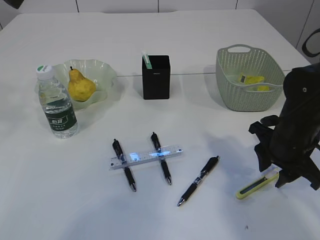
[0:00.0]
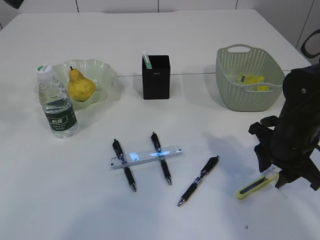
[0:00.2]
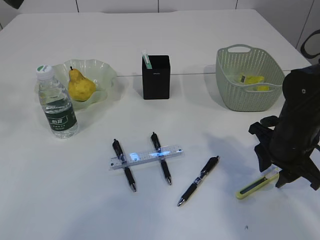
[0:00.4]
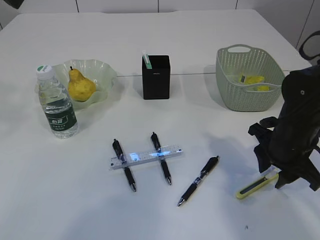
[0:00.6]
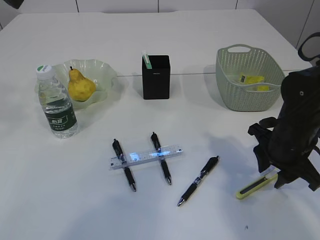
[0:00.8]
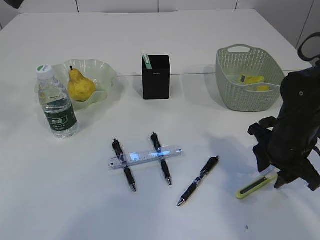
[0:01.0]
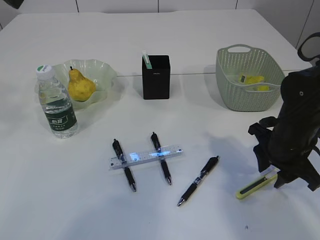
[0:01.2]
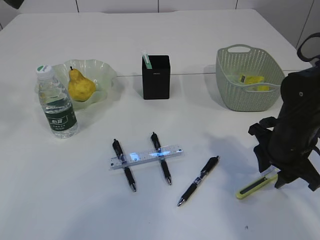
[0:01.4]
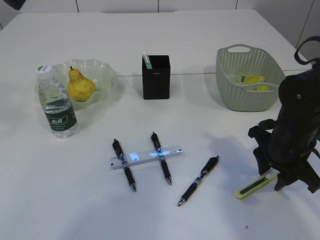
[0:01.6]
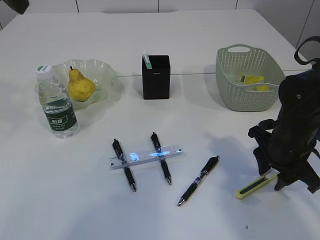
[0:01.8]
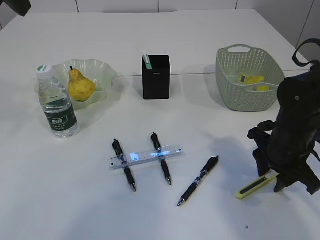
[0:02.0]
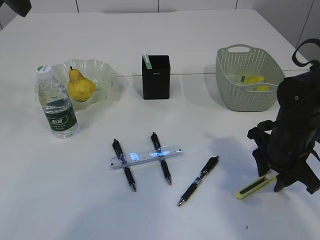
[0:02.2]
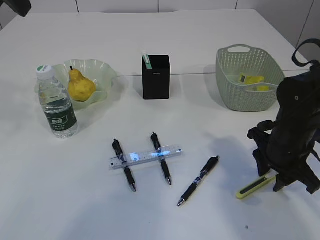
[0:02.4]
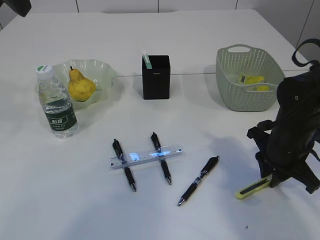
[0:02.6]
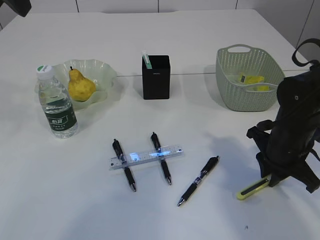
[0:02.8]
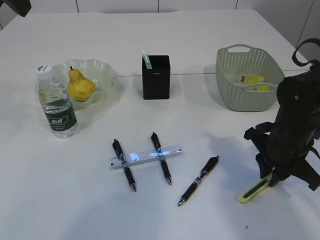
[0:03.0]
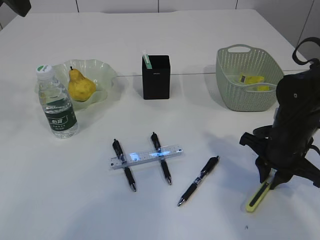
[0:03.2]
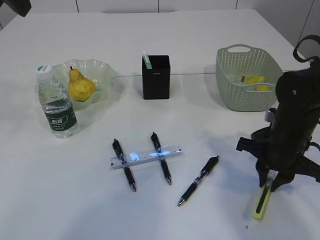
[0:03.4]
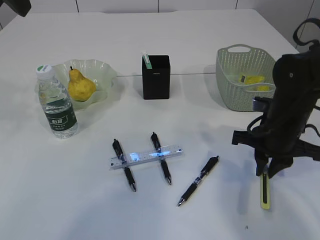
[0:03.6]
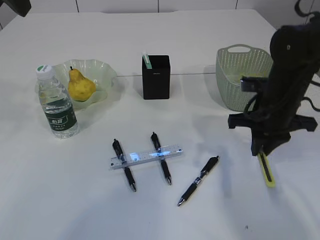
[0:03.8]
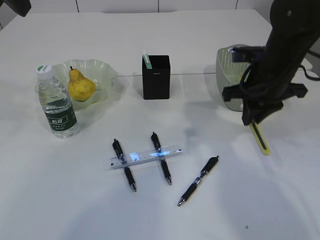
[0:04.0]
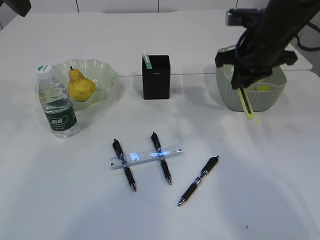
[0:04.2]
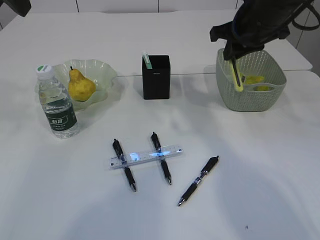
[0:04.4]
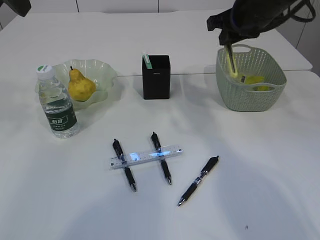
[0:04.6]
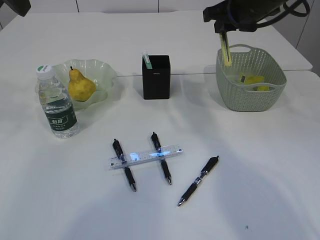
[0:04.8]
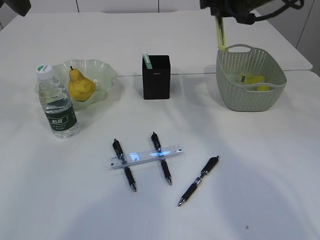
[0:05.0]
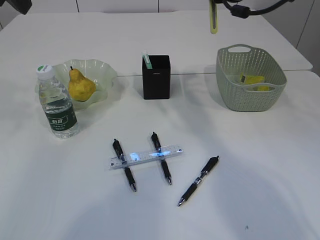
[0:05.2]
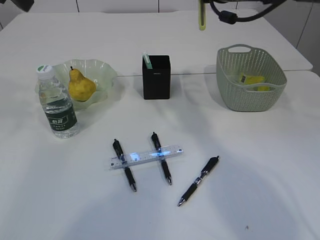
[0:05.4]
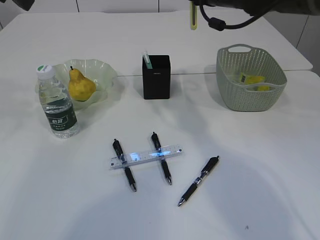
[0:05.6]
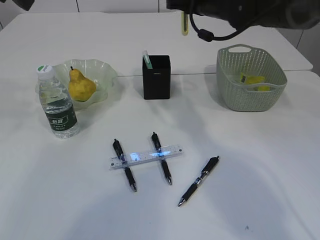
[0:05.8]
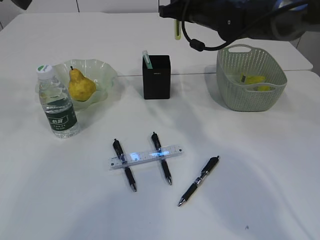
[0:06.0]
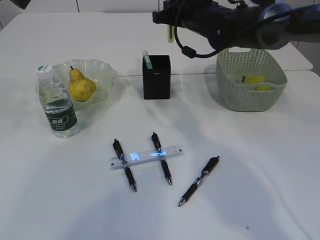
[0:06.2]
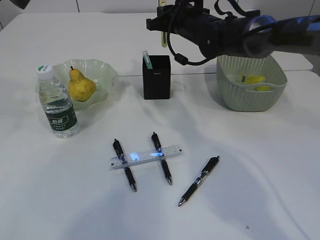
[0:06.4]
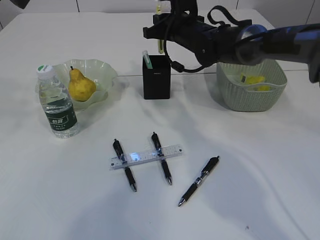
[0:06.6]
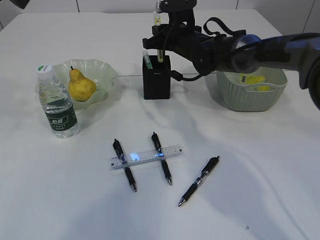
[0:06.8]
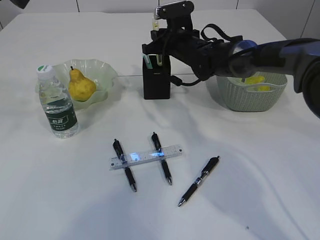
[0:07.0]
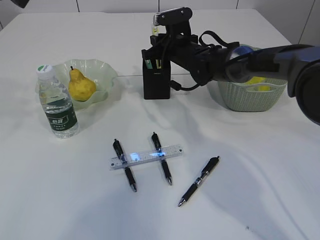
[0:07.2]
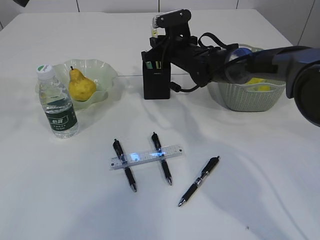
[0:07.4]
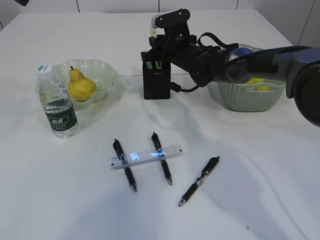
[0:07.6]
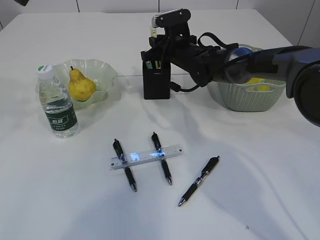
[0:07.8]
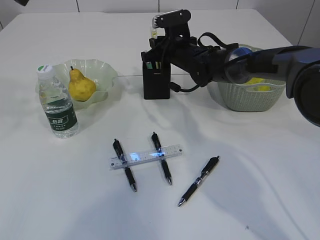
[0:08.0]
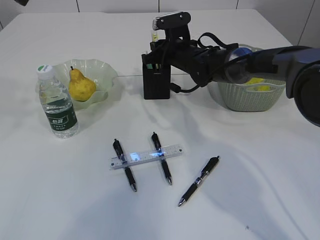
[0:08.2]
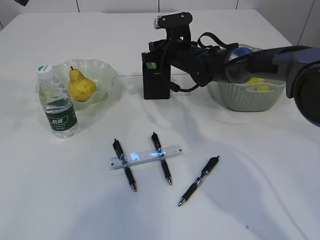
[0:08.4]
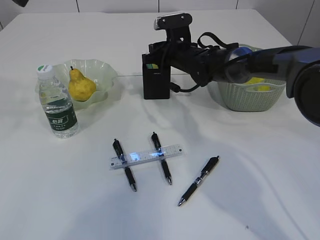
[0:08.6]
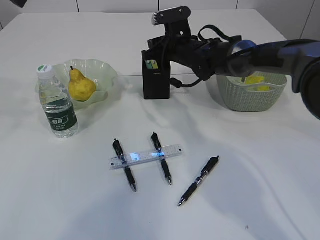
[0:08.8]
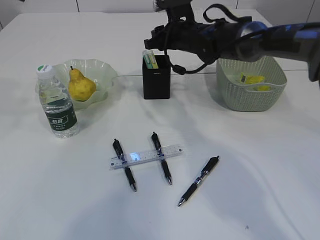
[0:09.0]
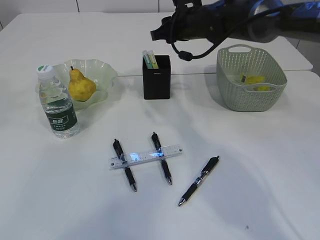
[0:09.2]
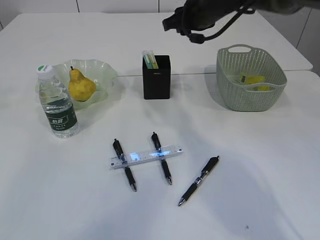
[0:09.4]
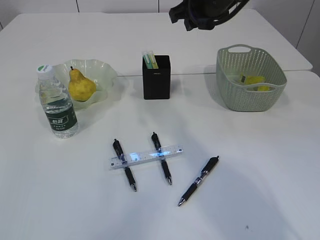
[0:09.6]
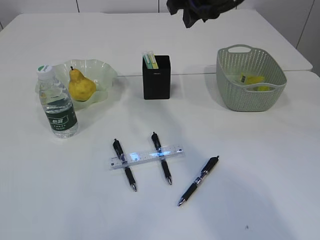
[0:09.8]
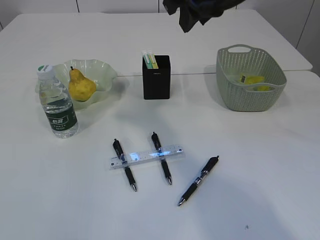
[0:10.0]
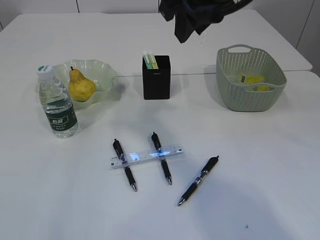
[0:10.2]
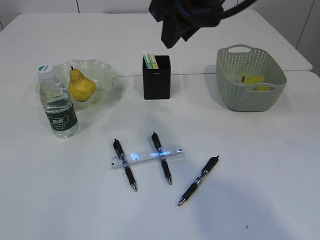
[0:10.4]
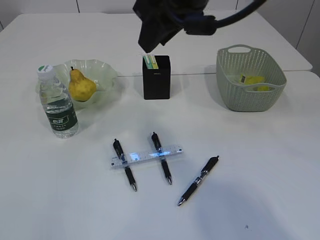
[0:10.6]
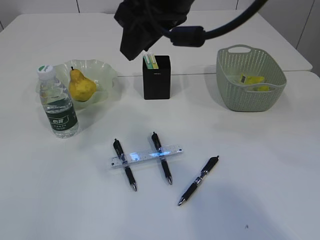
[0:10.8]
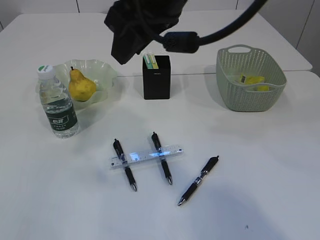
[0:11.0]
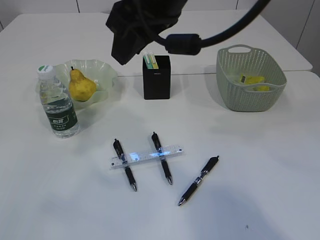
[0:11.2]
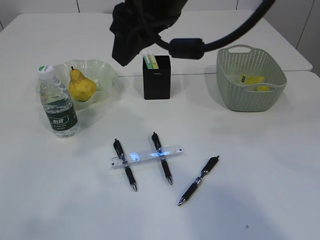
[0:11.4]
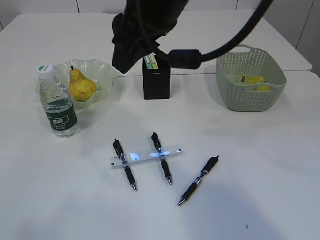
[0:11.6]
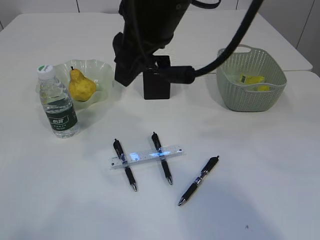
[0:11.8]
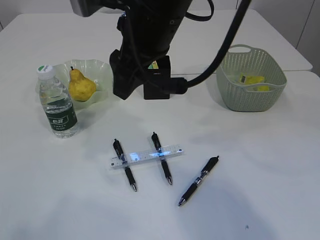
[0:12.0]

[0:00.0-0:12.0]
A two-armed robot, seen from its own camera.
Step, 0:00.0 to 0:03.8: pick up the yellow knife.
Step, 0:04.0 to 0:09.0: place the yellow knife into the pen holder.
0:00.0 to 0:01.6: Both grippers stay about where they are.
0:01.6 to 0:03.0: The right gripper closes up.
0:03.0 to 0:04.4: The right gripper goes approximately 20 cm upward and forward.
0:04.4 to 0:06.0: The right gripper shifts about 10 cm forward and to the left.
0:06.0 to 0:07.6: The right gripper shifts some 10 cm downward.
0:07.6 to 0:09.0: The right gripper opens its fingers.
0:09.0 to 0:10.4: The right gripper moves backward and upward, about 25 cm. The left gripper moves backward, upward and to the left, approximately 30 cm.
0:10.4 to 0:12.0: The left gripper travels downward and backward by about 15 cm. Meanwhile the right gripper moves to the left, approximately 5 cm.

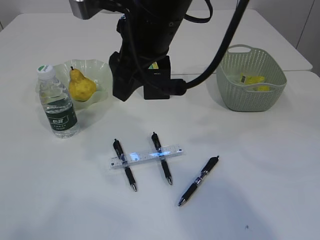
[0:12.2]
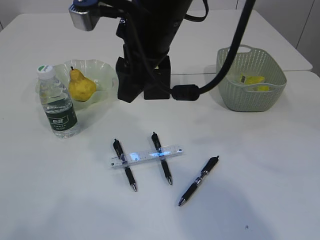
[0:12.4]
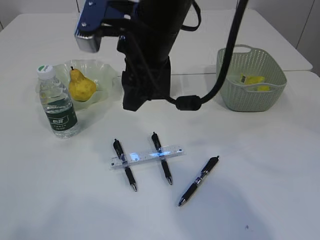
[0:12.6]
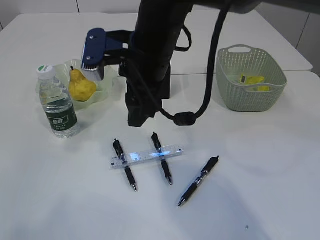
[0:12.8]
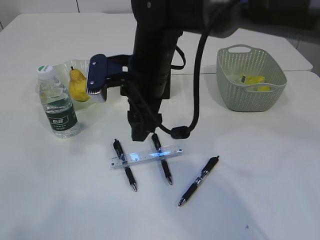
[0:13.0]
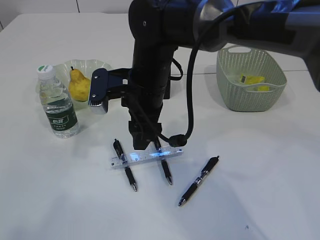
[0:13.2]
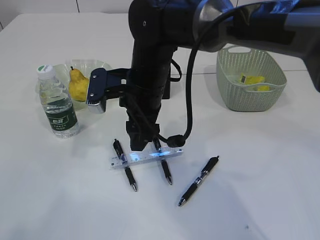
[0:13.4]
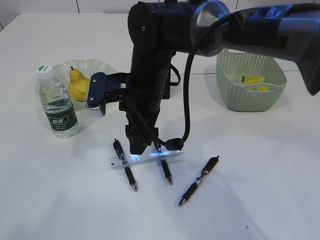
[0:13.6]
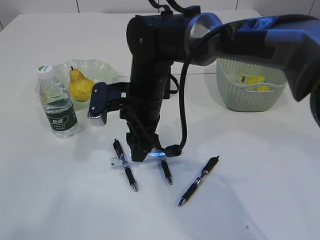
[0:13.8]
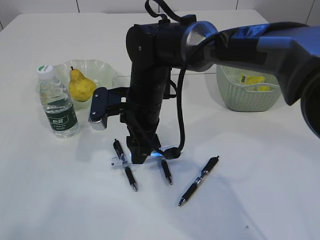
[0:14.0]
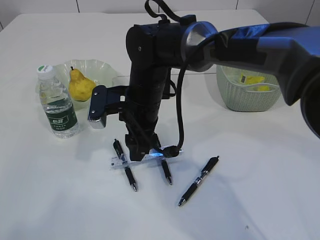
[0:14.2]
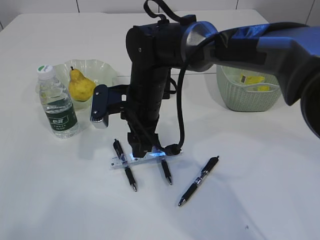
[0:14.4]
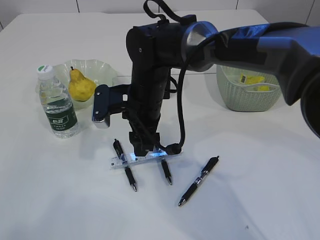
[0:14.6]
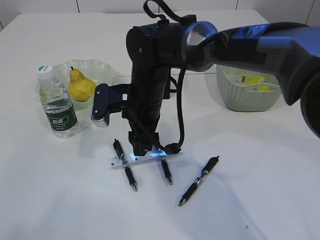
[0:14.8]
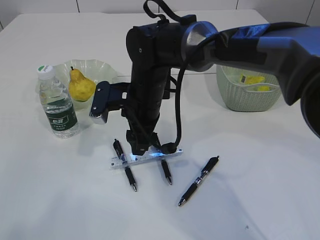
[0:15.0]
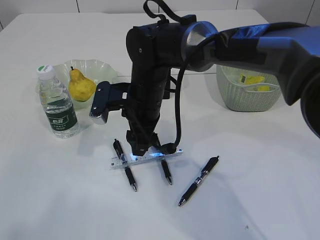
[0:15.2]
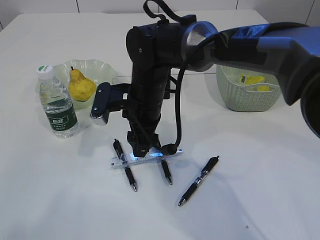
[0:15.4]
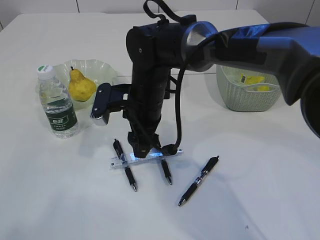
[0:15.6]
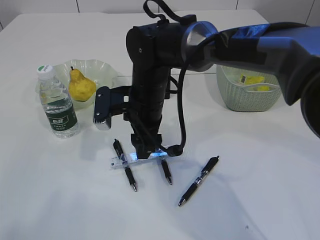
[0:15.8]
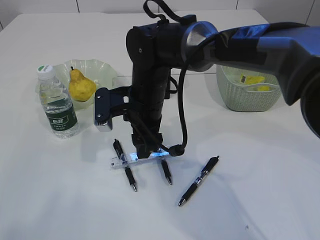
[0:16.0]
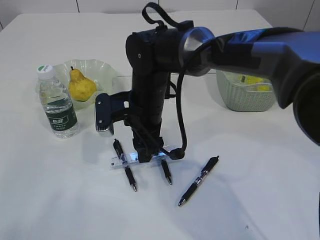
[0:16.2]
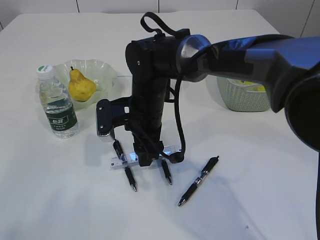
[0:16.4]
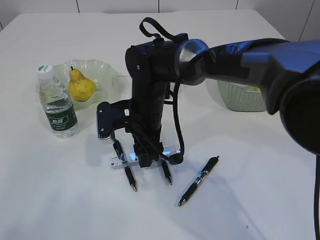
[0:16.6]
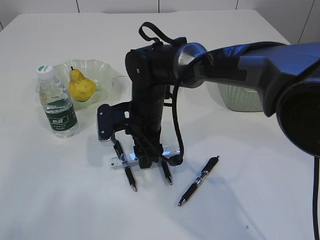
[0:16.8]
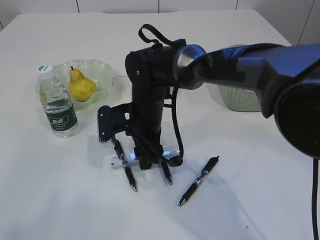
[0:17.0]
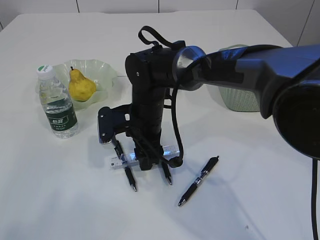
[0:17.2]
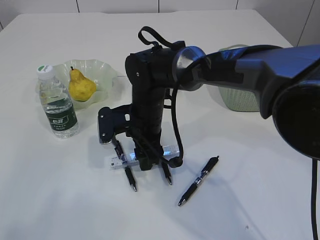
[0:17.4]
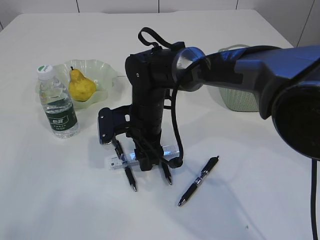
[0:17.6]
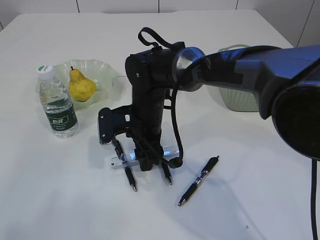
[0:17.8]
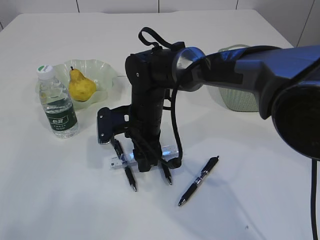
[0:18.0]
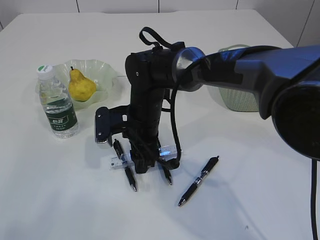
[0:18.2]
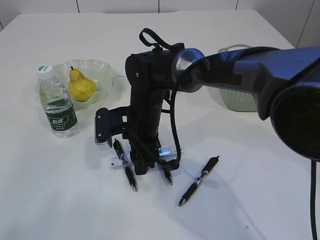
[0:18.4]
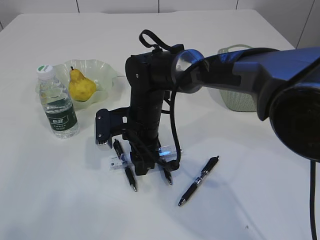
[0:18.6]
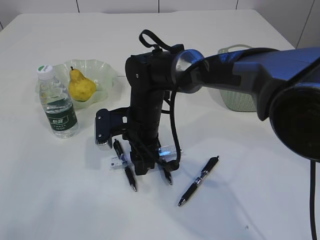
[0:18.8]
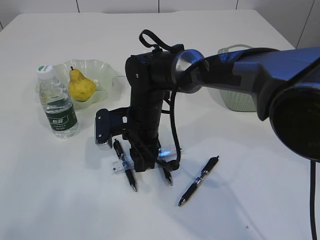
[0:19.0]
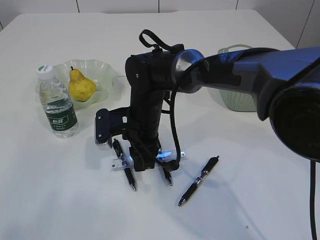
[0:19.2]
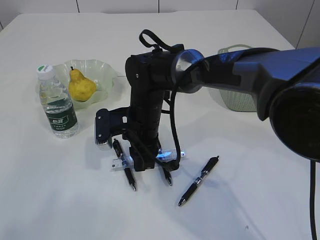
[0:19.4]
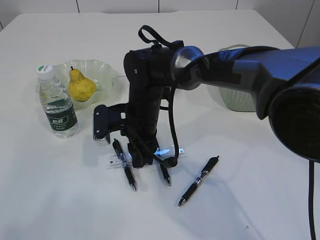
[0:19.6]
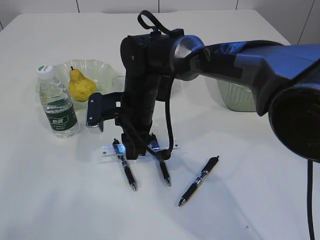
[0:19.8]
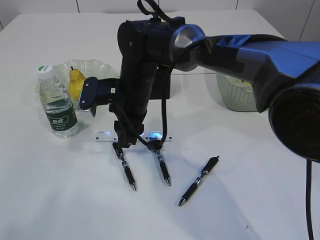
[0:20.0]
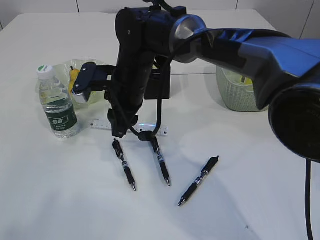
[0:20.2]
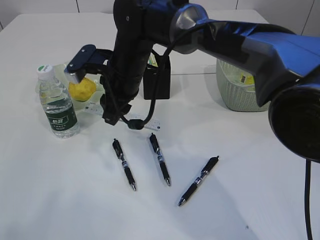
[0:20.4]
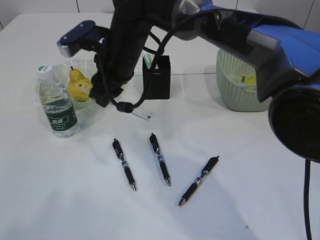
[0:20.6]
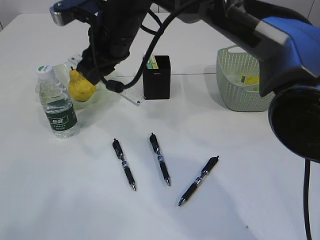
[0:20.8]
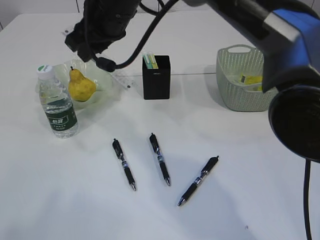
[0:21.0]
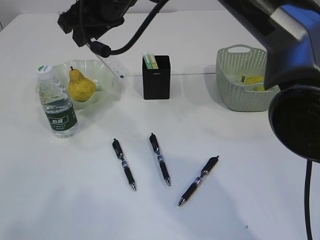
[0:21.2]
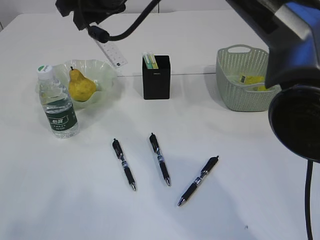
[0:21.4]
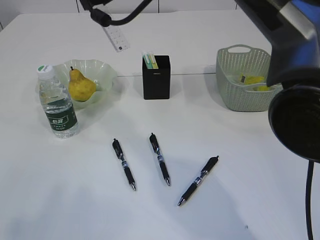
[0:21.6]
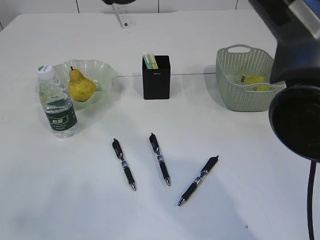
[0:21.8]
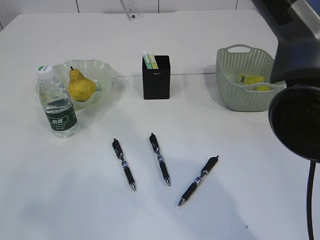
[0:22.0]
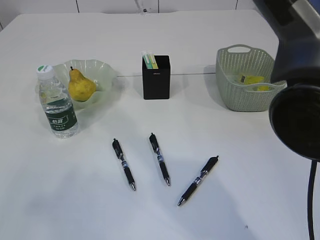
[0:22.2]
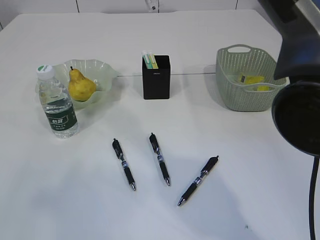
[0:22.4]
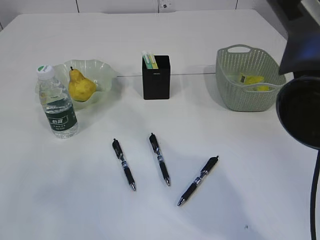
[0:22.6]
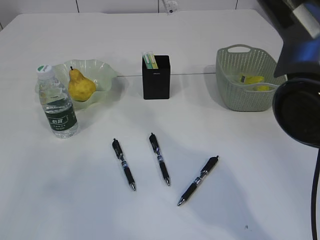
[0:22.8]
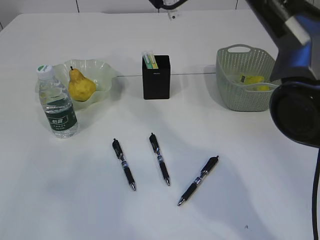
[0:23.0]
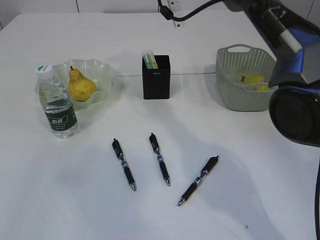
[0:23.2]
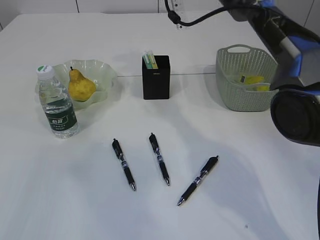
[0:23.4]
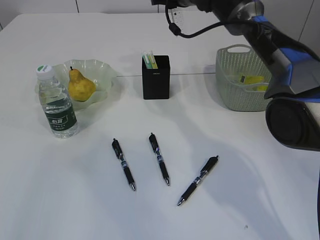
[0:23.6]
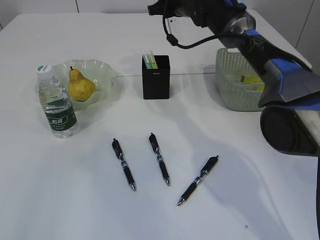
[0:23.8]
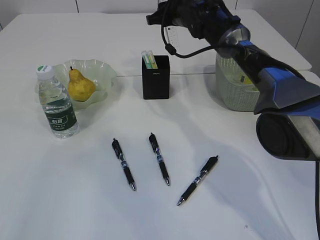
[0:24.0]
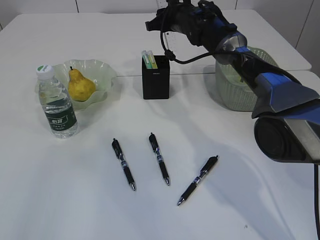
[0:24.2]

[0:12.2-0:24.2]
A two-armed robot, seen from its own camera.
Step, 0:12.2 to 0:20.2: pick up the ruler.
0:12.2 to 0:13.8: The right gripper is displaced downward by roughly 15 cm.
0:13.8 to 0:18.2: The grippers move only a little.
0:18.2 to 0:19.8: The right gripper closes.
0:19.8 to 0:21.2: The right gripper heads upward, covering roughly 20 cm.
0:21.2 to 0:22.6: The left gripper moves about 5 cm. The right gripper travels to the right and upward by some 10 cm.
0:22.6 to 0:24.2: The left gripper shifts some 5 cm forward, while the right gripper goes some 25 cm downward and forward.
